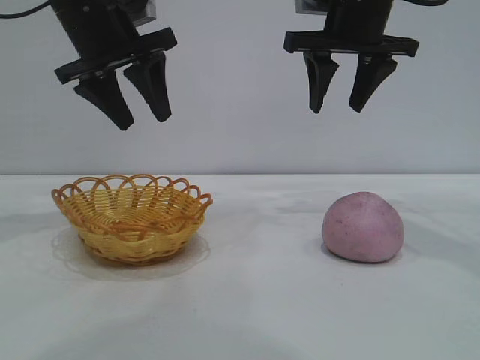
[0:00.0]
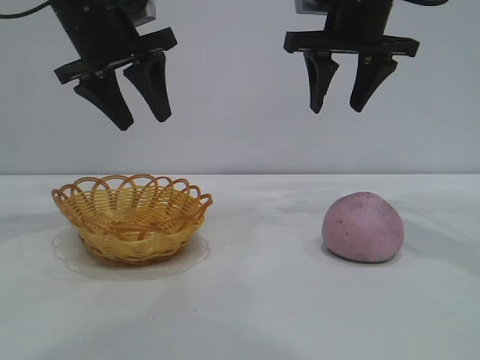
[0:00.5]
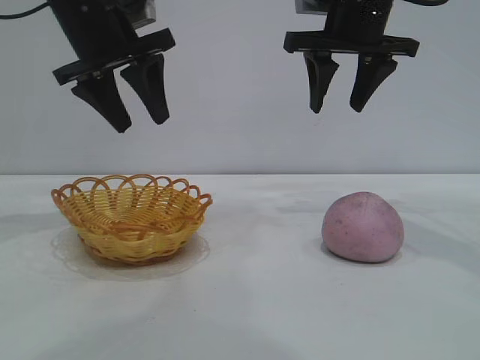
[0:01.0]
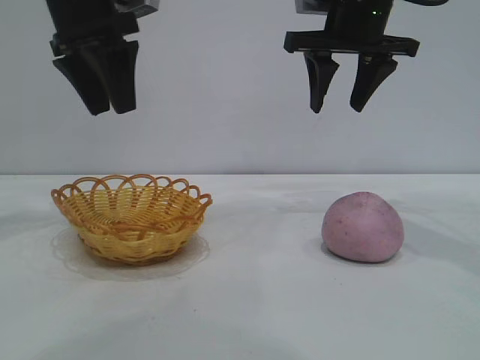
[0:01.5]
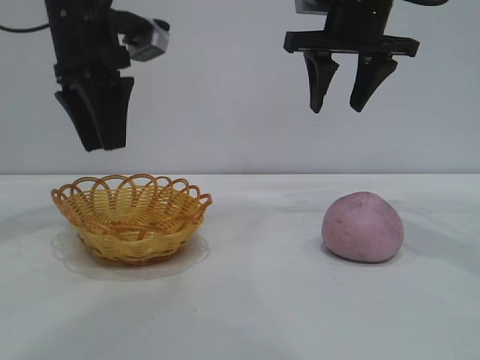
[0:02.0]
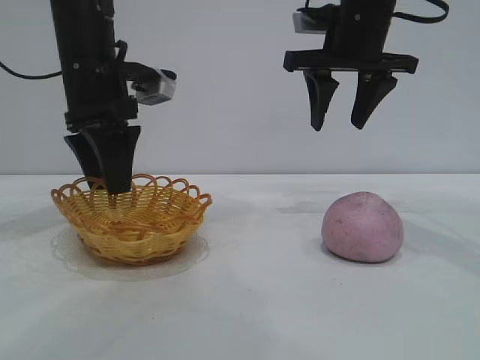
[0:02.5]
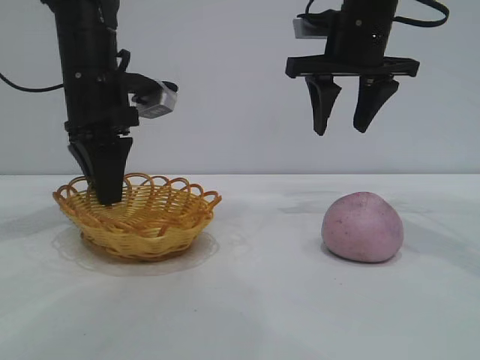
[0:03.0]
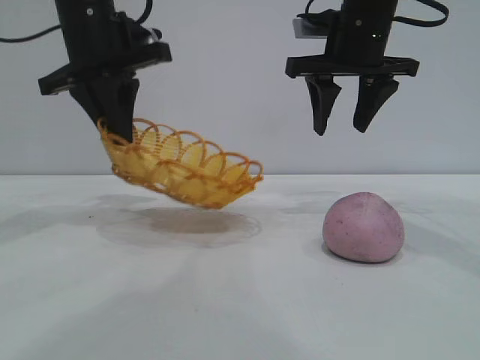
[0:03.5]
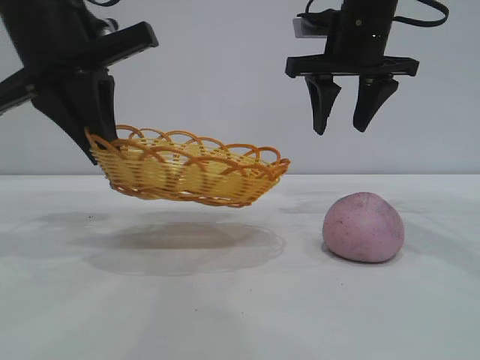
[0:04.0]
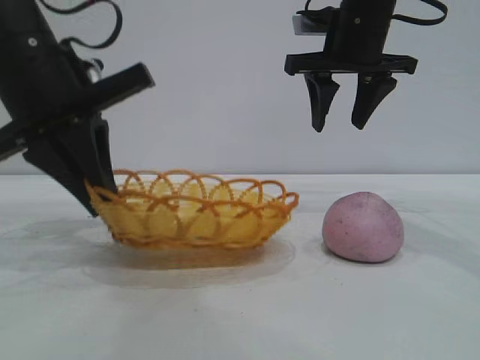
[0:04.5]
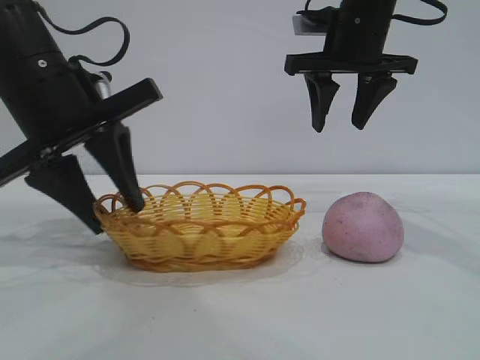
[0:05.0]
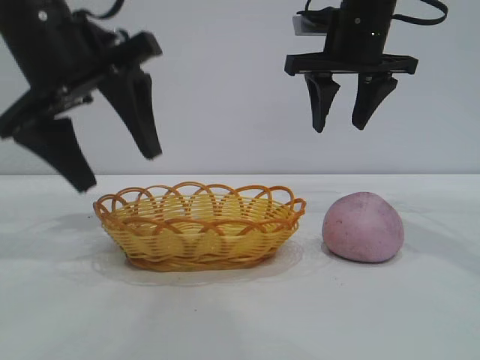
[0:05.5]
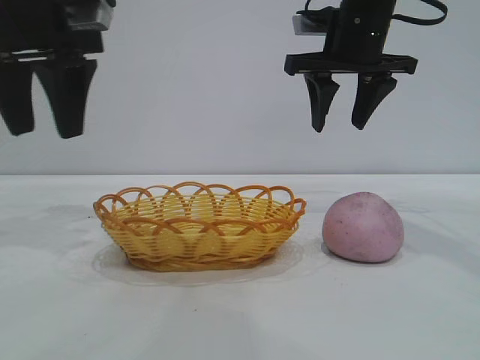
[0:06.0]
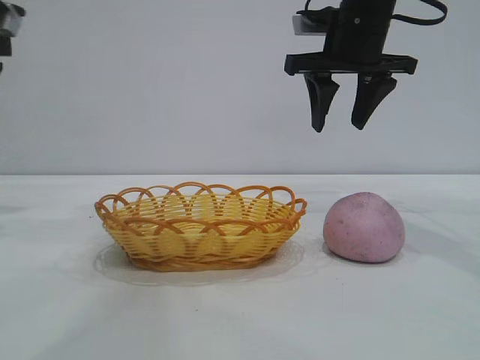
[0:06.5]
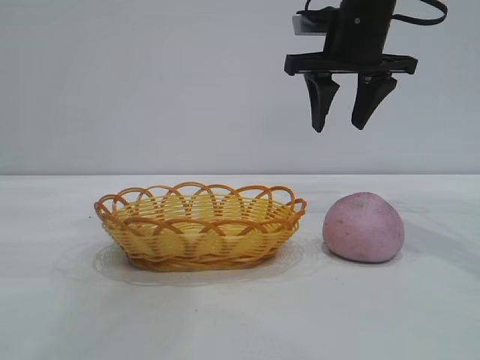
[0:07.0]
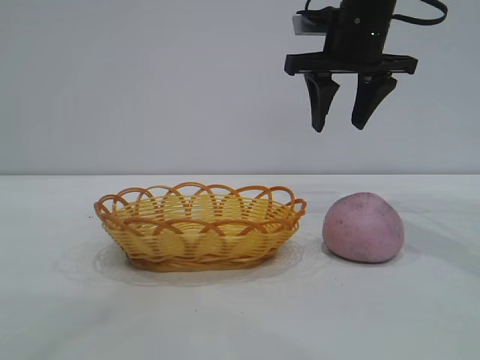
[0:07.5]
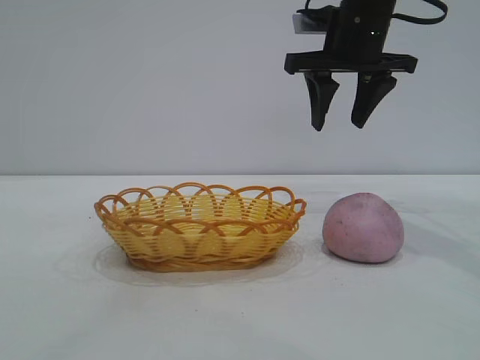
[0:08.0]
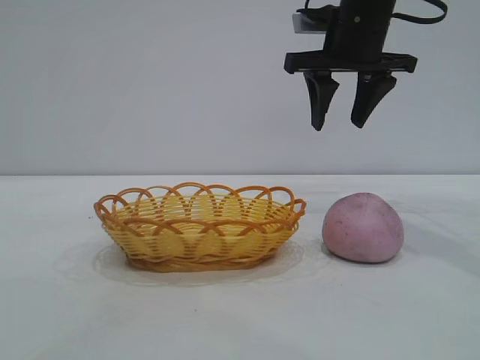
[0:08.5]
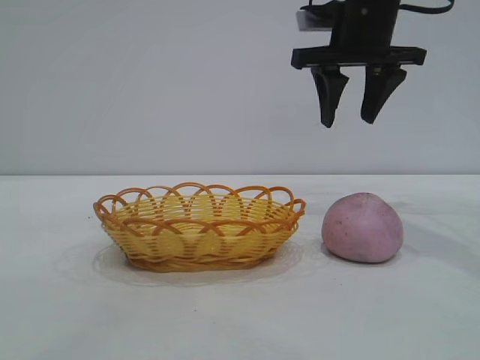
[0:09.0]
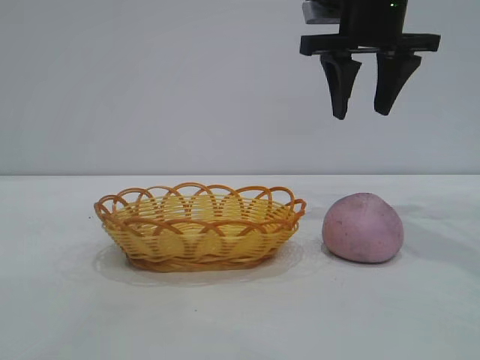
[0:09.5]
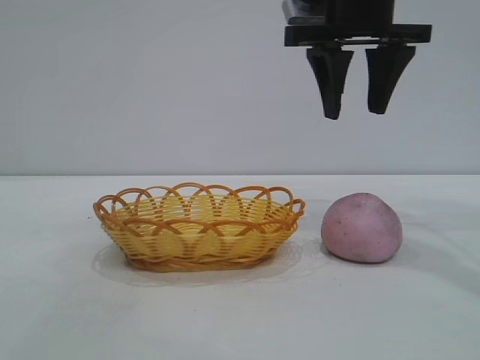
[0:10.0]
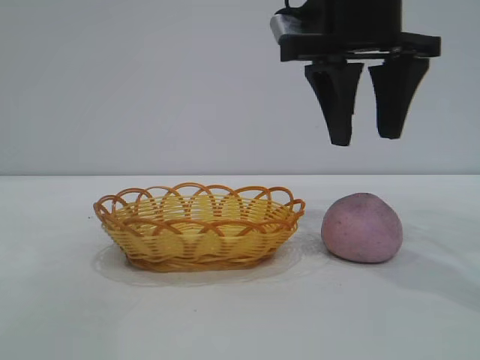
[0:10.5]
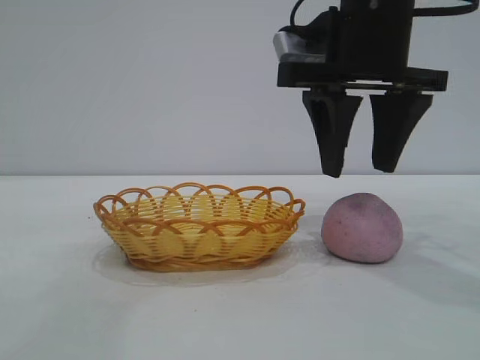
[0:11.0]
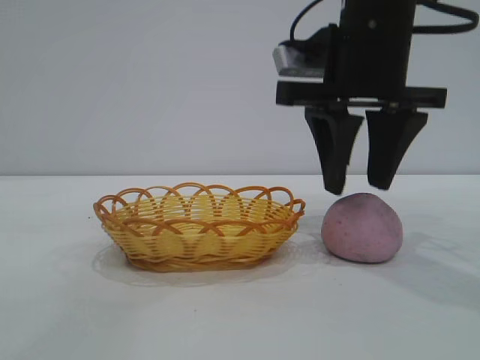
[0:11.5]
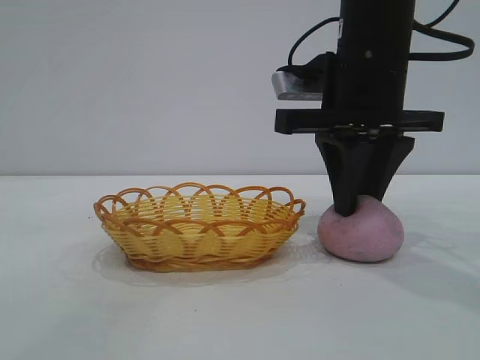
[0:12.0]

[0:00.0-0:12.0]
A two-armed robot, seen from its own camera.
Task of the whole recording: pick up the peach and put it into the basket.
Step, 0:00.0 to 0:05.5: Move the basket to the center of view.

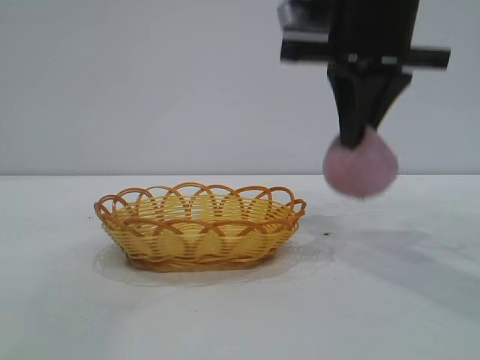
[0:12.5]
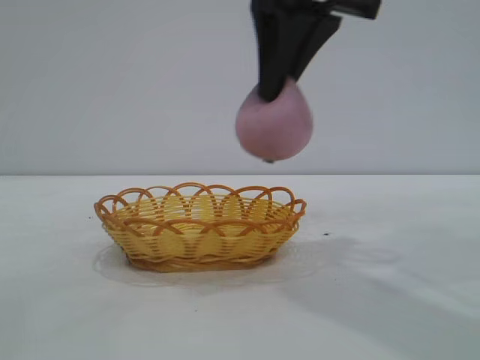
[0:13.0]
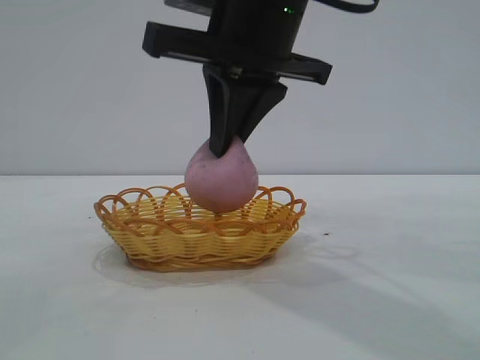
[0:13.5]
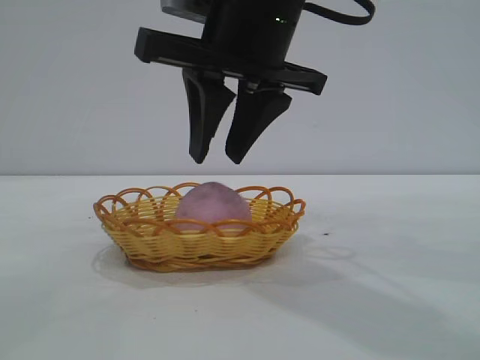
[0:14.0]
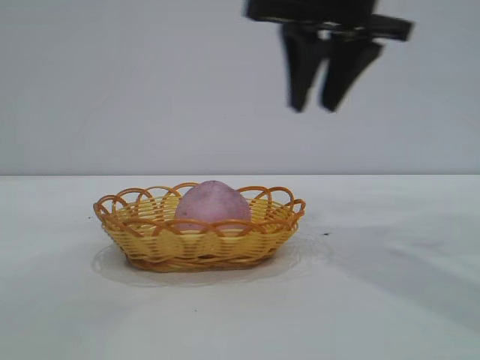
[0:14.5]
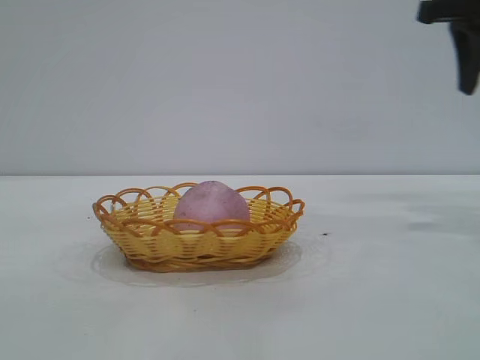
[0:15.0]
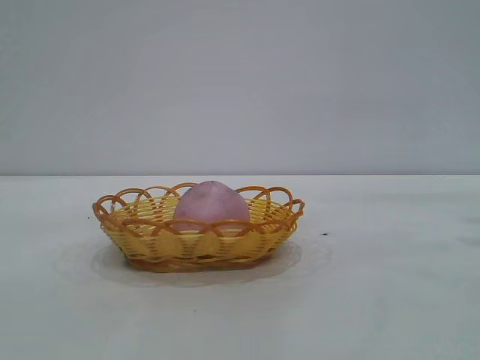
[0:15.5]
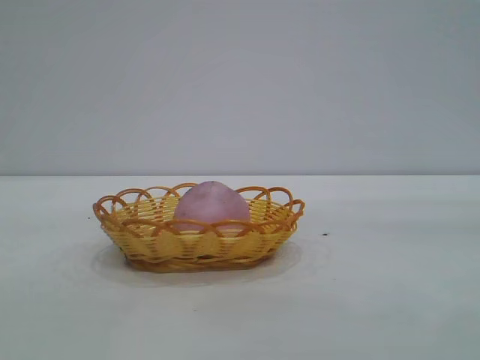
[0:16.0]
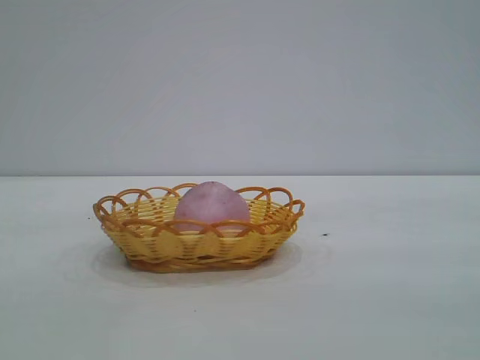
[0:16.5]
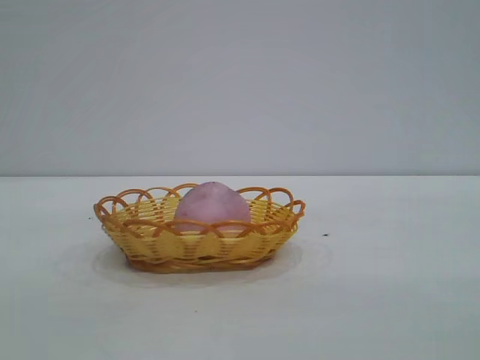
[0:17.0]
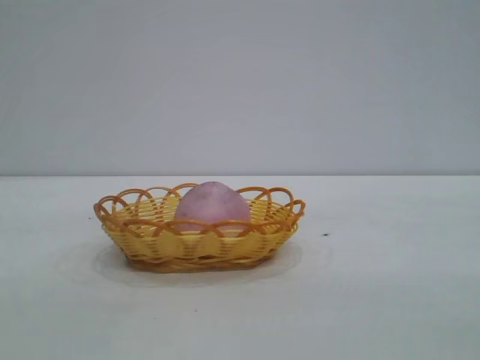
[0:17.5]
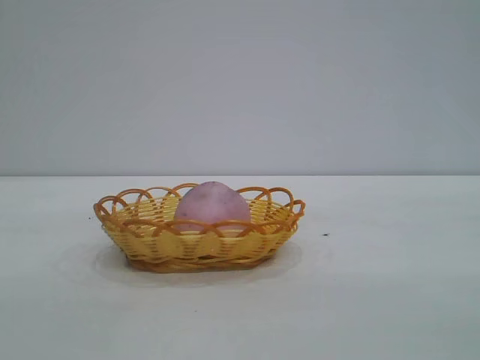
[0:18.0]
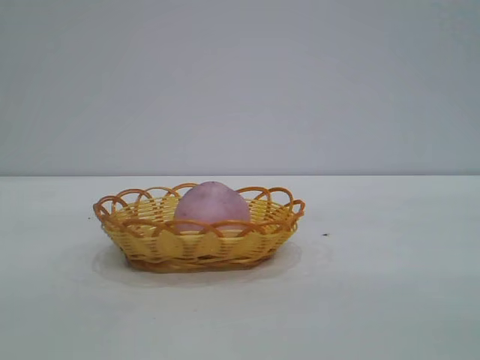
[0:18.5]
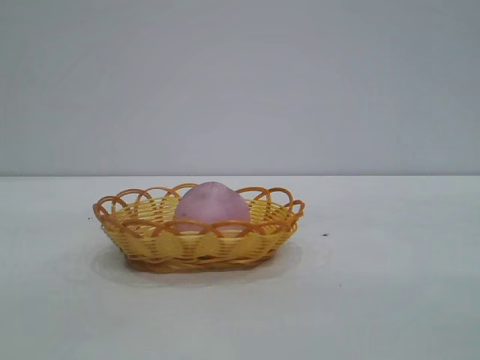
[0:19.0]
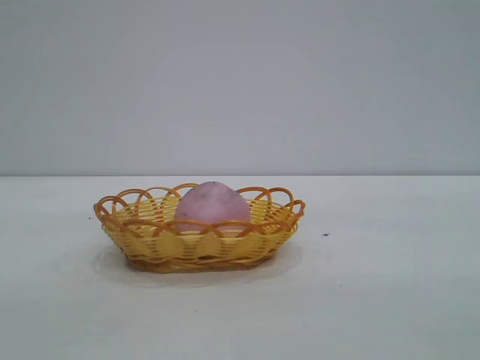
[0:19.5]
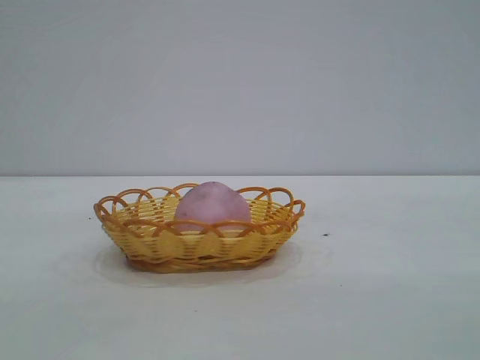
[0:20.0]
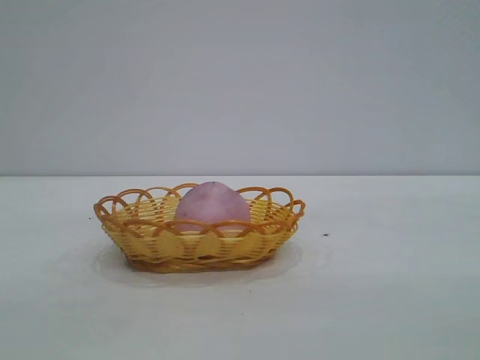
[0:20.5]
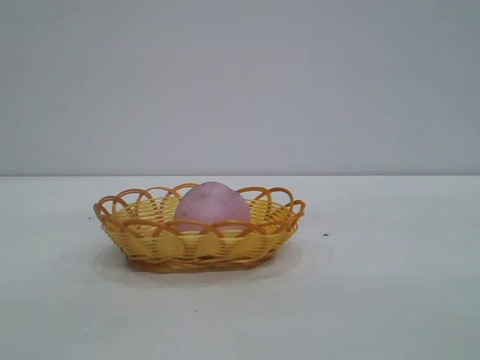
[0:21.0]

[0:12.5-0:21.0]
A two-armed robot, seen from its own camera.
Task of the whole recording: pick up the peach and put it into the basket.
Step, 0:13.0 to 0:14.5: place the peach into the basket.

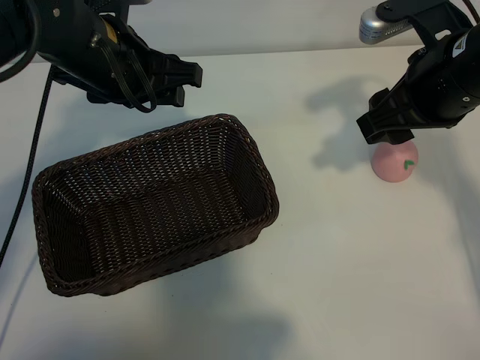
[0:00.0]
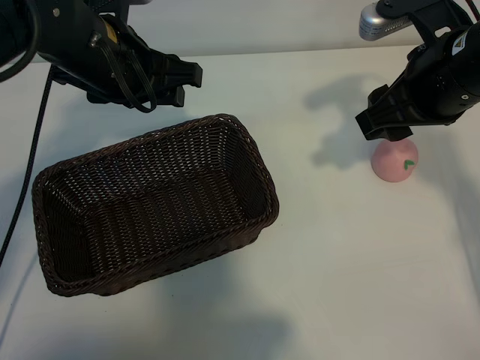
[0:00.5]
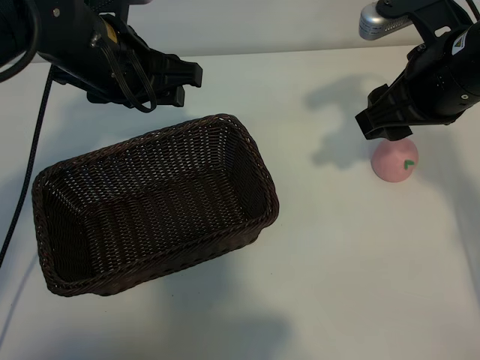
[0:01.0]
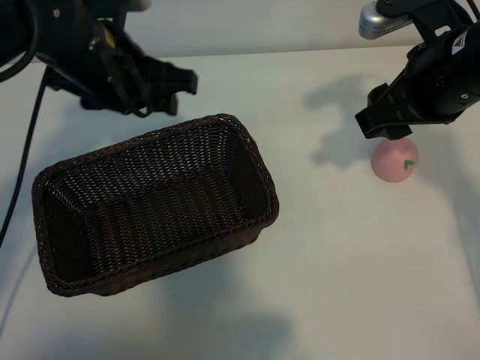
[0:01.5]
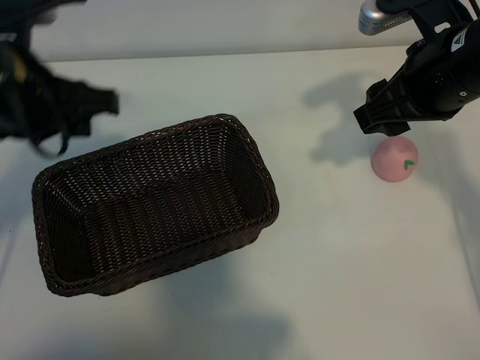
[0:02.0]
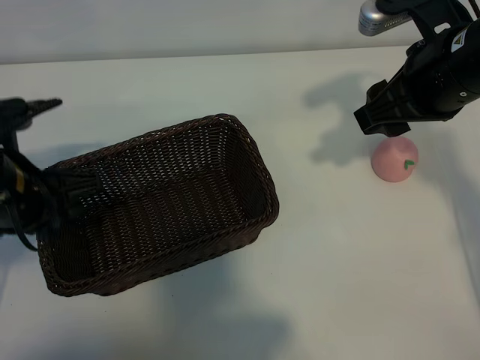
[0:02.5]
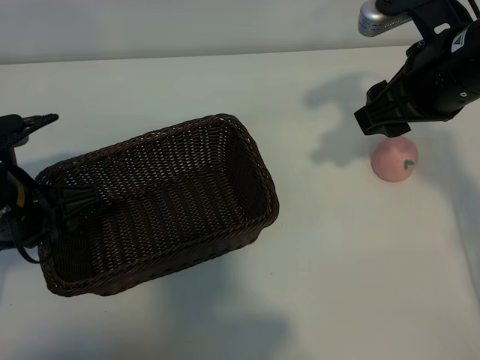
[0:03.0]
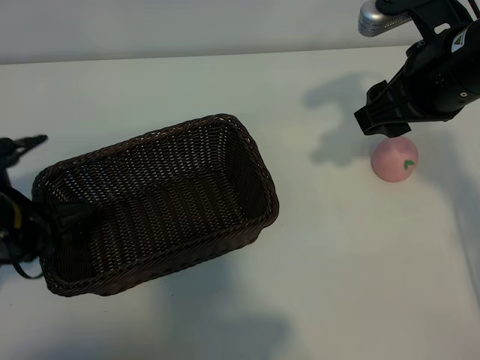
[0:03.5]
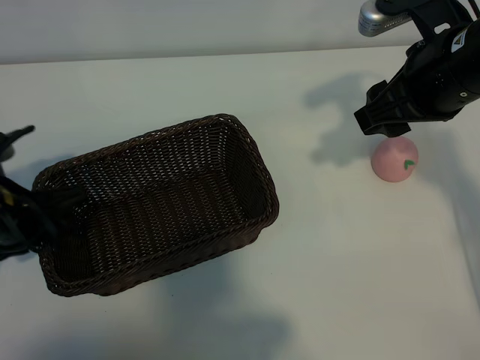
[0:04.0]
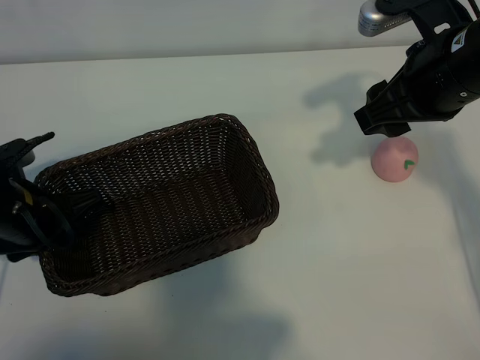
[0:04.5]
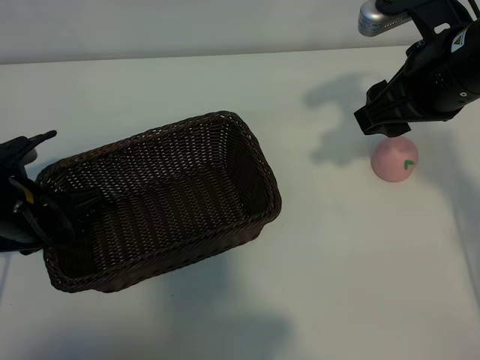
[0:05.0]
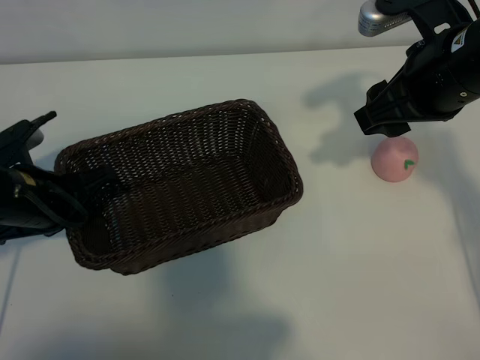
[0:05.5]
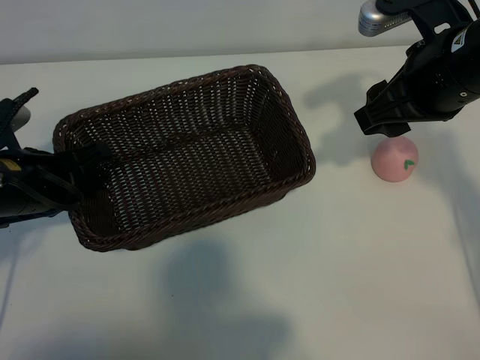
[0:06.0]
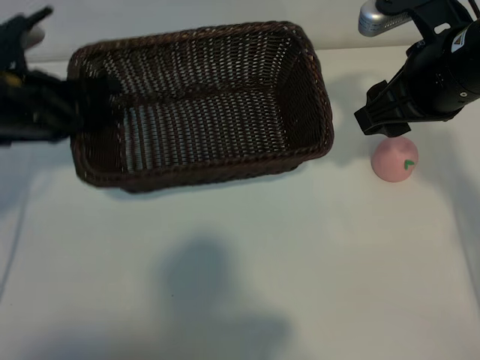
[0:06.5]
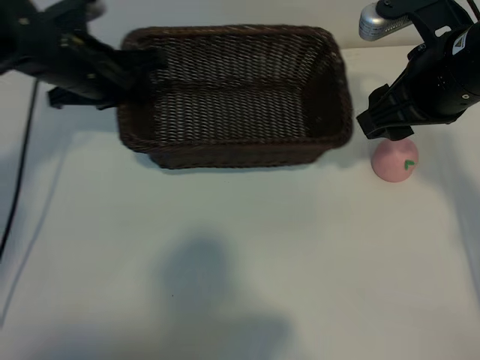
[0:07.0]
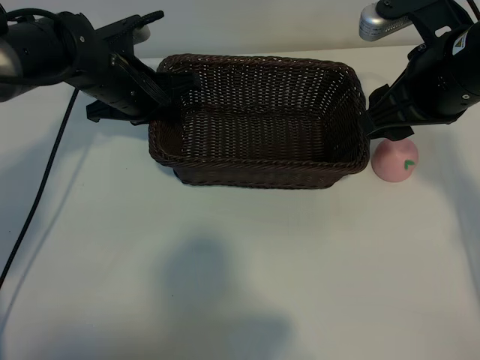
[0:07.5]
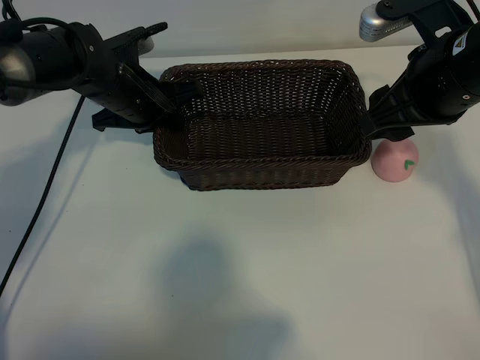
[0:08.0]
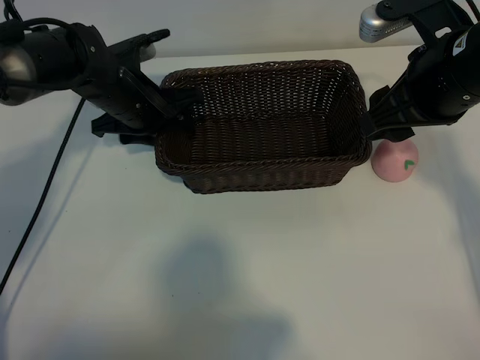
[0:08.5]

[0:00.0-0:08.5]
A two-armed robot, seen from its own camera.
Task of the whole recording: pick up the peach and put it into the basket.
Step, 0:01.5 to 0:04.5: Grasp the basket with left gripper.
